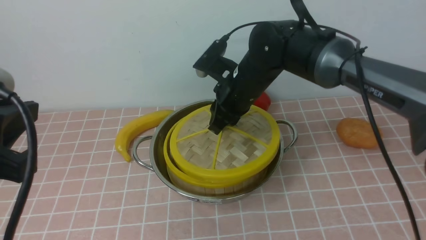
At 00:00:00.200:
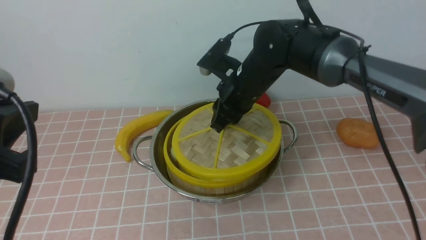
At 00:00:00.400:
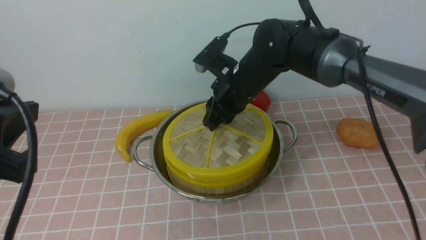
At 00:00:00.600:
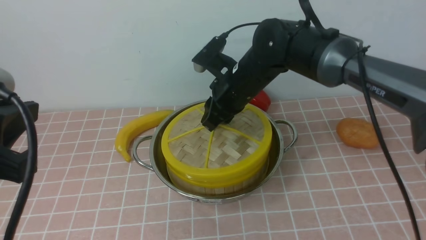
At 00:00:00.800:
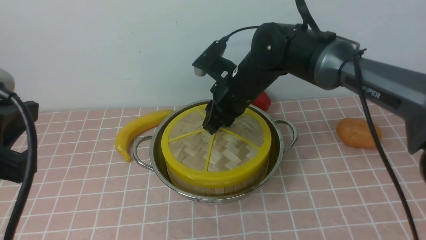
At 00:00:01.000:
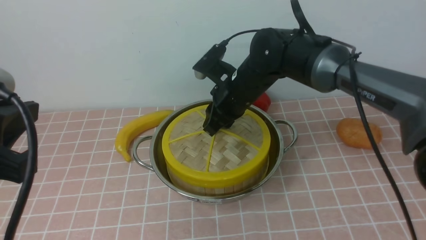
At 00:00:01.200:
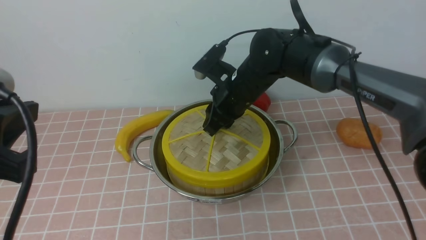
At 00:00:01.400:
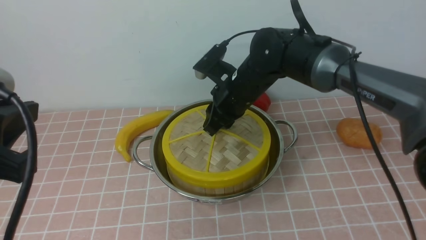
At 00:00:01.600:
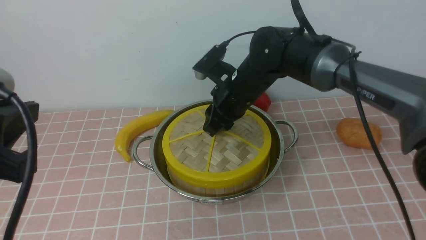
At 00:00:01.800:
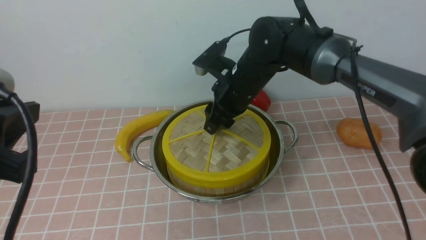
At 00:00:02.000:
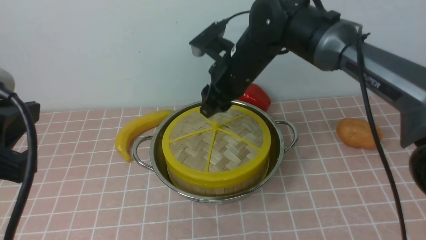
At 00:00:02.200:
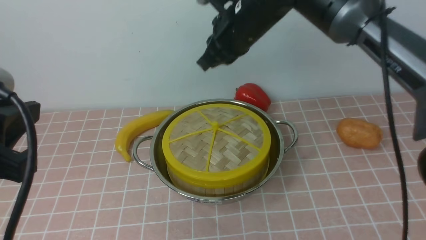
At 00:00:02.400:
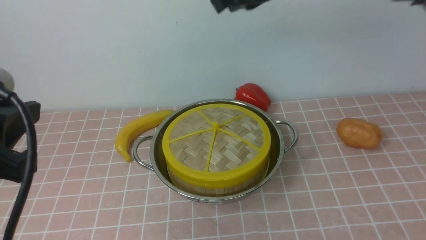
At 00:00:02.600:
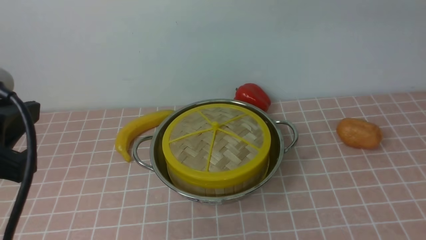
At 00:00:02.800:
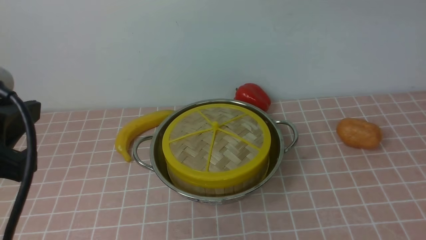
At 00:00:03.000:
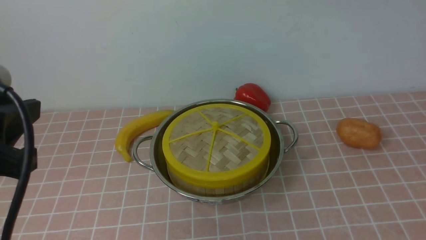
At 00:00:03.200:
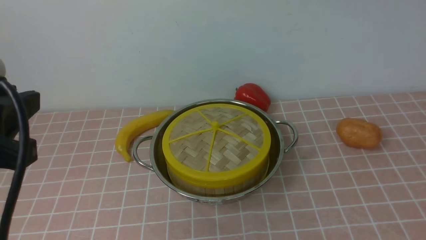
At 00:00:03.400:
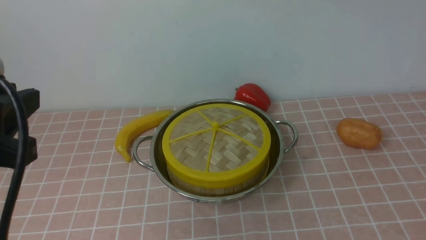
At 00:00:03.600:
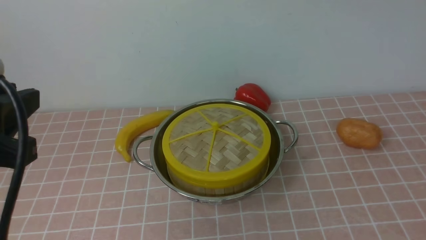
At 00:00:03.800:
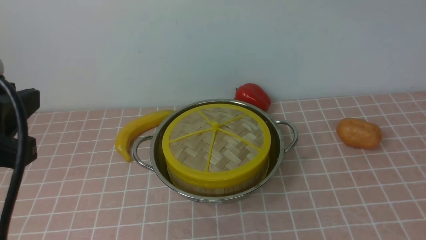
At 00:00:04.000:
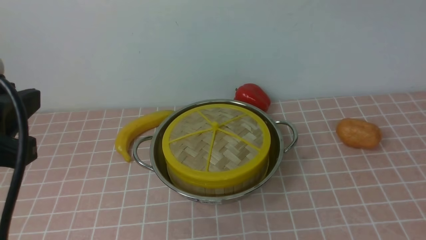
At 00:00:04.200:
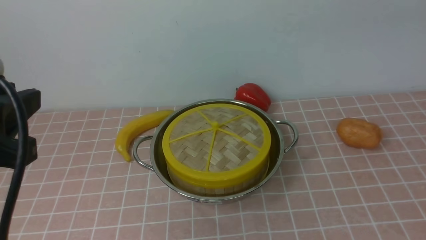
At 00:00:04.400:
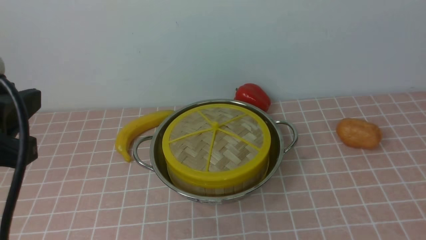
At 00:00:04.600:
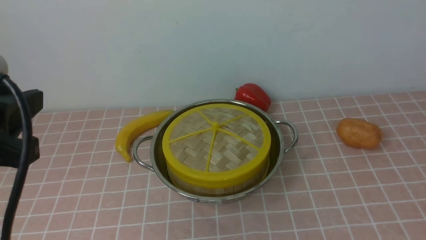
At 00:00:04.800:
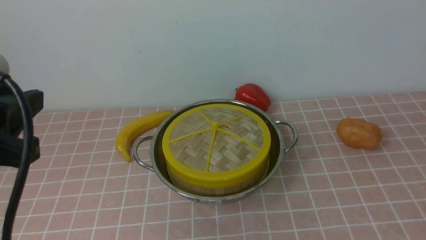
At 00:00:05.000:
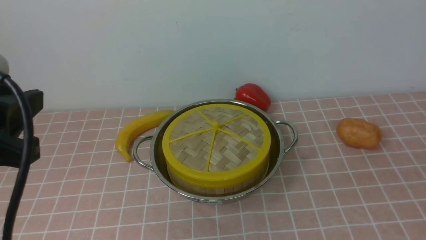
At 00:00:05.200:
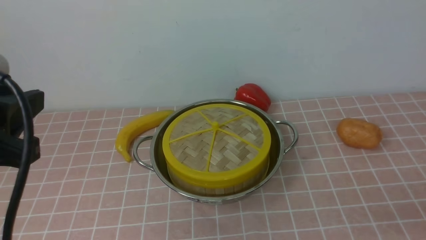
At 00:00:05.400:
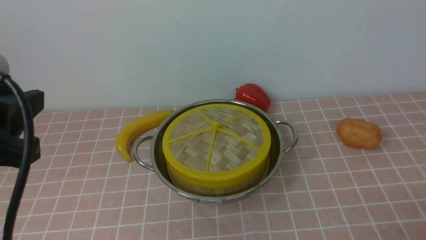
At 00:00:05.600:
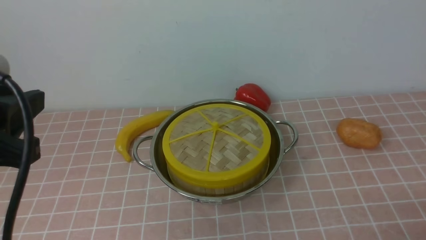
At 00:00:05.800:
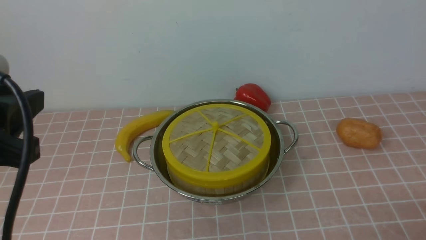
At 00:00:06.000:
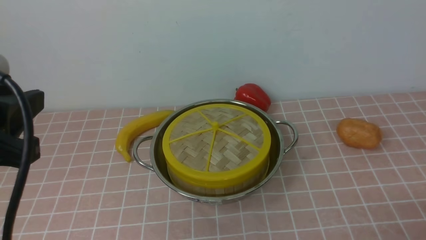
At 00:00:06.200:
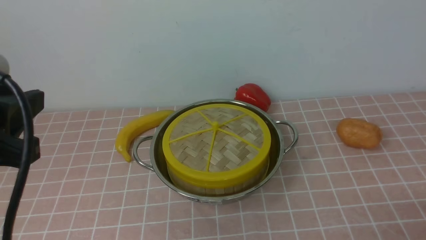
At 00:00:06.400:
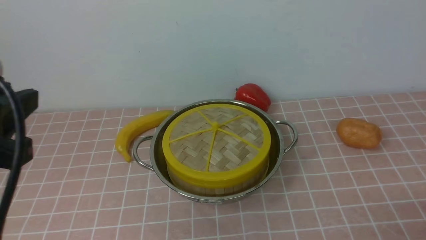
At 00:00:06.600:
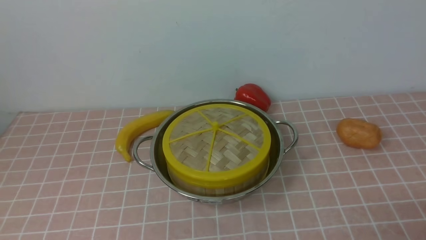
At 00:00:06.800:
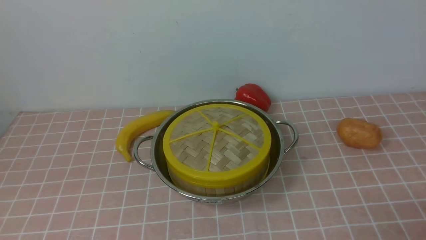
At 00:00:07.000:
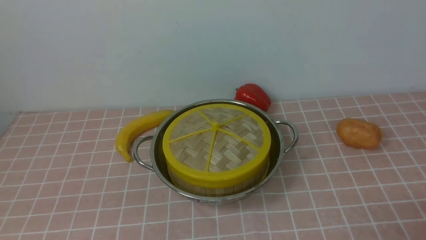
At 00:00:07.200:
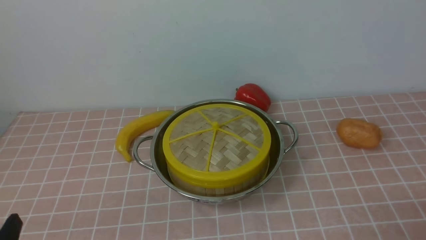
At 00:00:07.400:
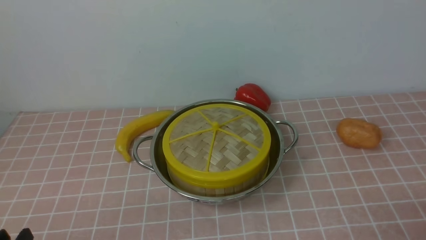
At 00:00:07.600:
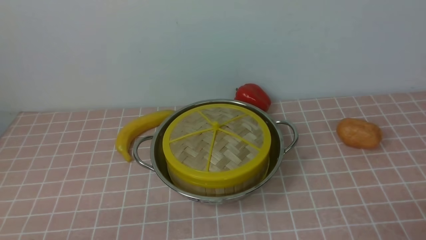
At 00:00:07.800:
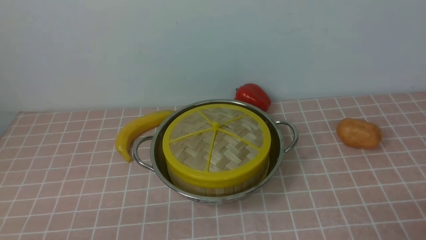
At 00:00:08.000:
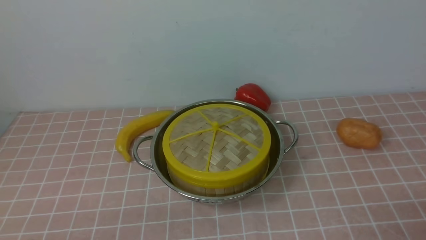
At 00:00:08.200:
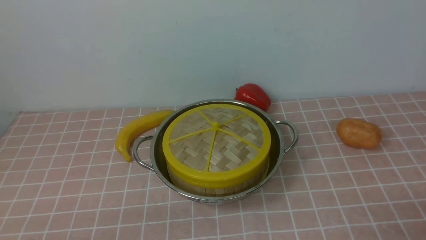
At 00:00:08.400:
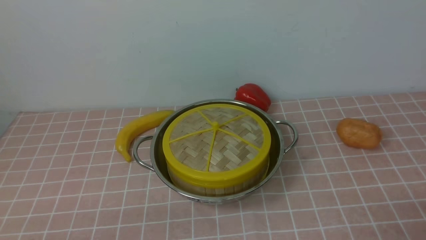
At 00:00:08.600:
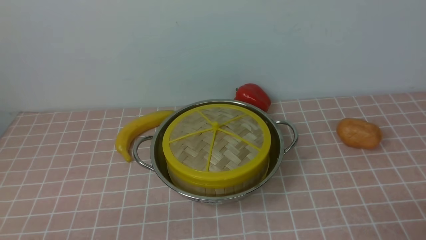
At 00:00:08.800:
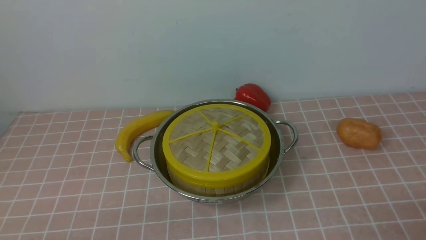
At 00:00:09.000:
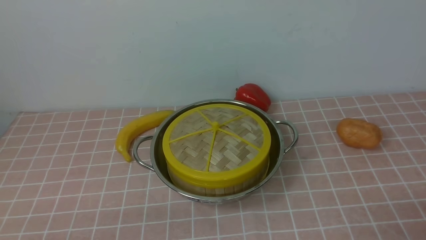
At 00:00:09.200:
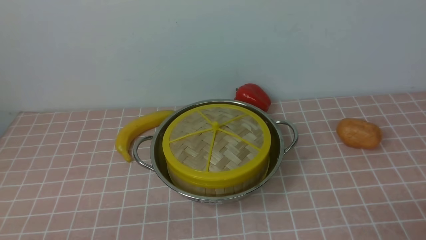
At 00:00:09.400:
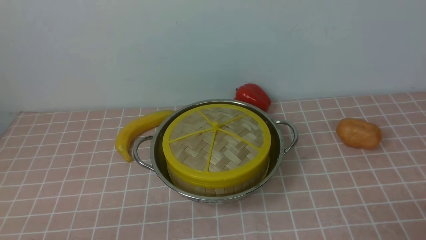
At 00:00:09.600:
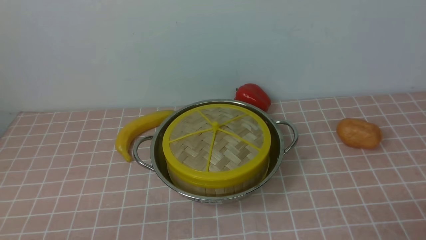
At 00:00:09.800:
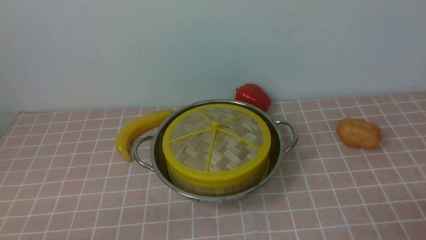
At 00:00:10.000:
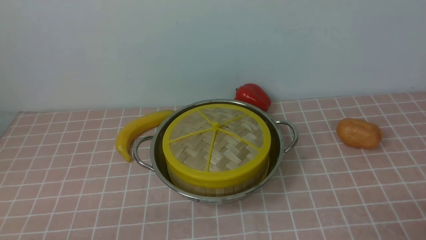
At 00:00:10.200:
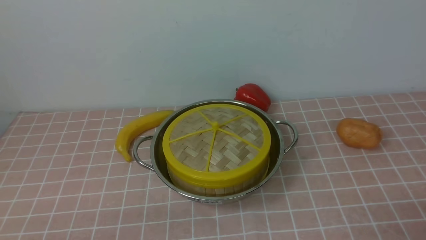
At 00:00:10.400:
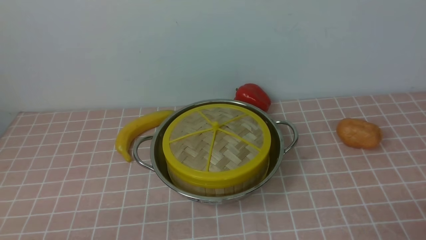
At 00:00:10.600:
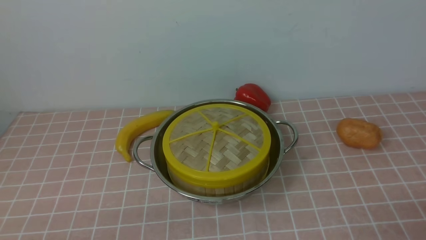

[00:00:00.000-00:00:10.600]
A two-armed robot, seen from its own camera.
Task of the whole recording: place the steamer in the pot on the pink tablecloth, and put the lid on the steamer.
Step, 00:00:00.000 to 00:00:02.000: use the right arm to place the steamer lid on the steamer.
00:00:00.000 to 00:00:01.600: There are only small adjustments of the grippers.
00:00:01.600 to 00:00:03.000: The right gripper heads upward, covering roughly 30 cm, and closes.
00:00:06.000 to 00:00:07.600: The left gripper moves downward, about 20 cm.
00:00:07.600 to 00:00:10.600: Both grippers stay put.
